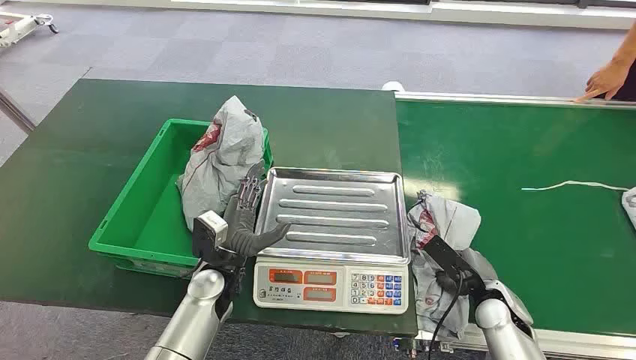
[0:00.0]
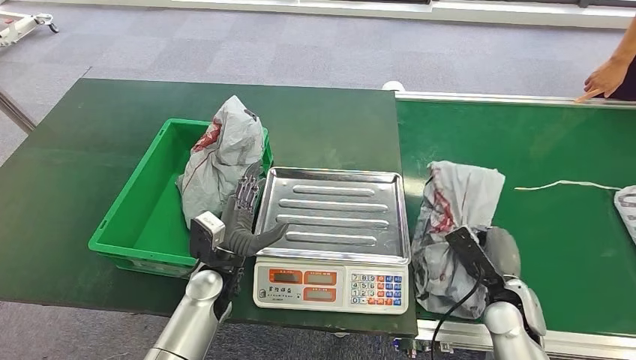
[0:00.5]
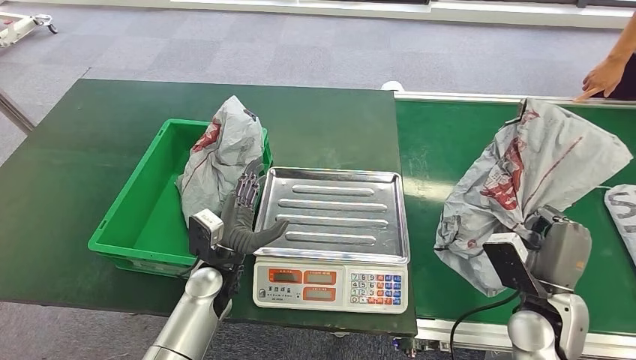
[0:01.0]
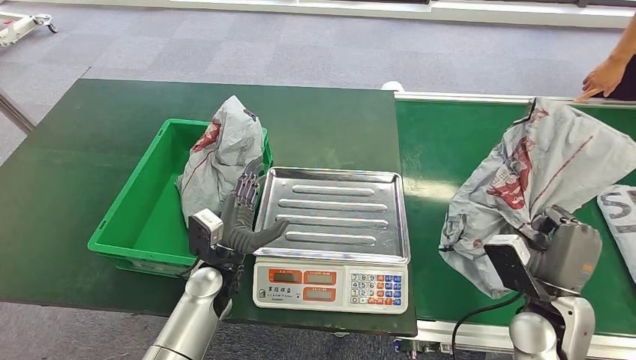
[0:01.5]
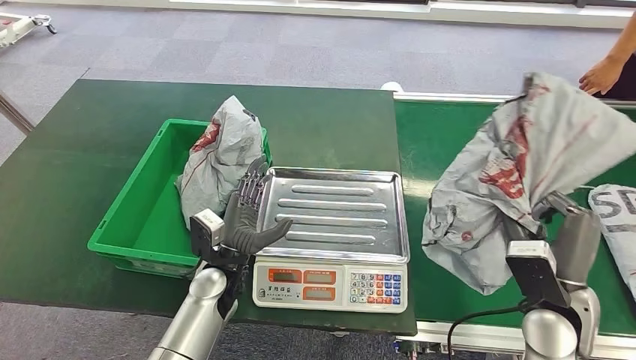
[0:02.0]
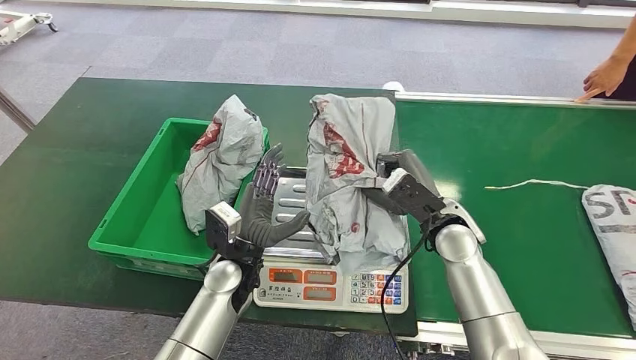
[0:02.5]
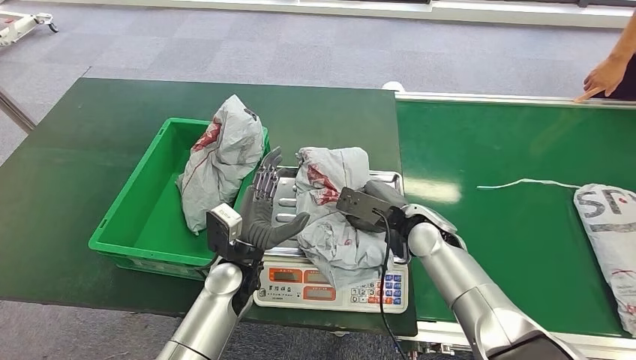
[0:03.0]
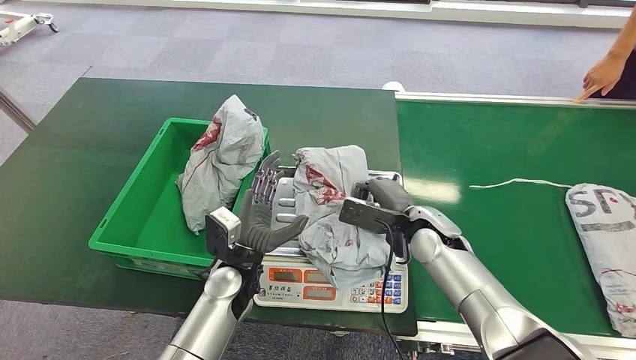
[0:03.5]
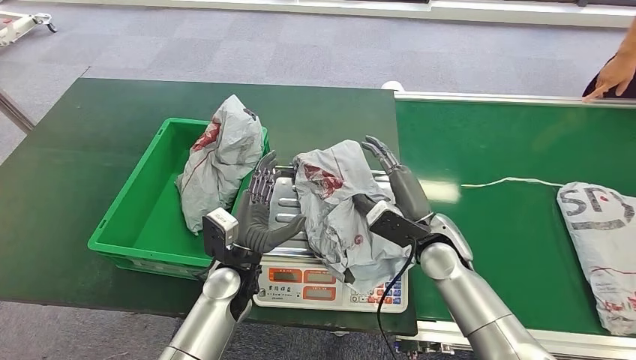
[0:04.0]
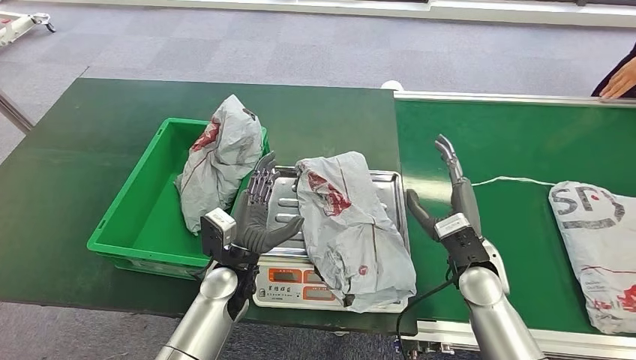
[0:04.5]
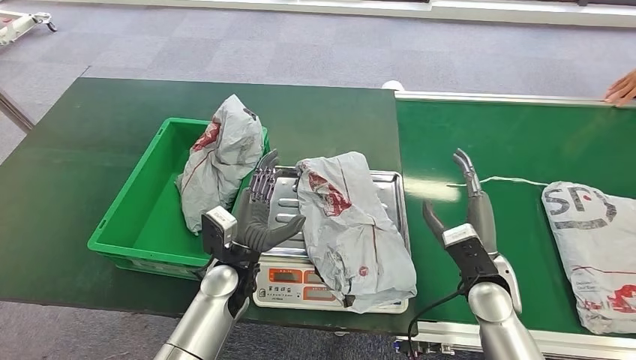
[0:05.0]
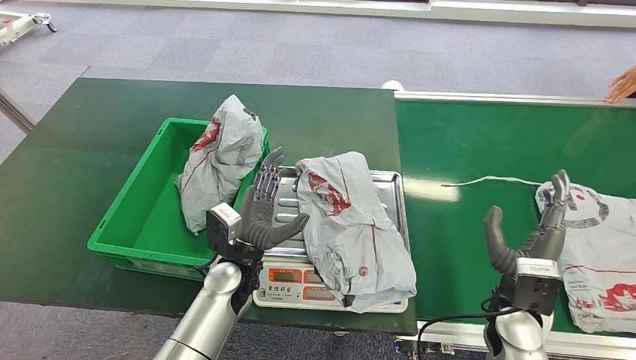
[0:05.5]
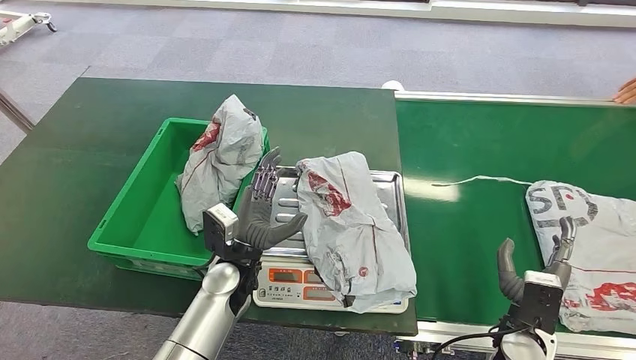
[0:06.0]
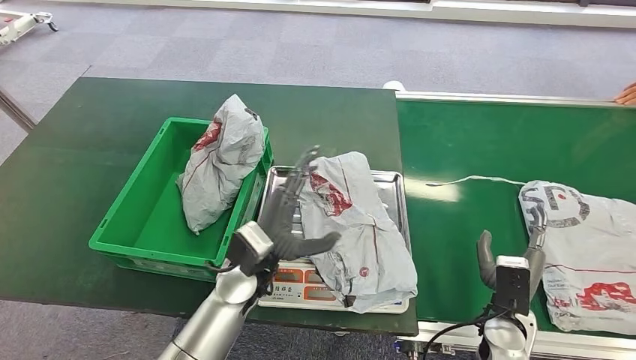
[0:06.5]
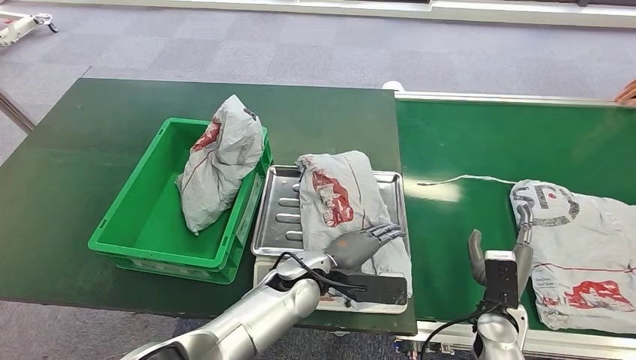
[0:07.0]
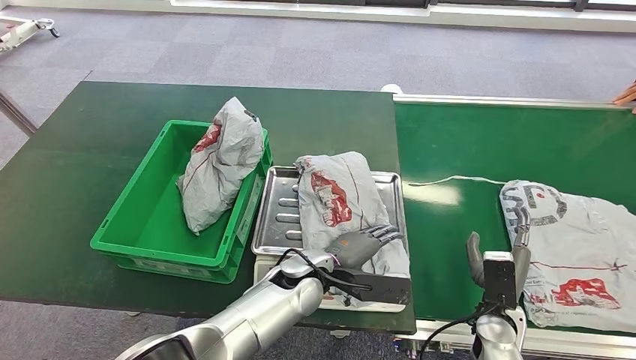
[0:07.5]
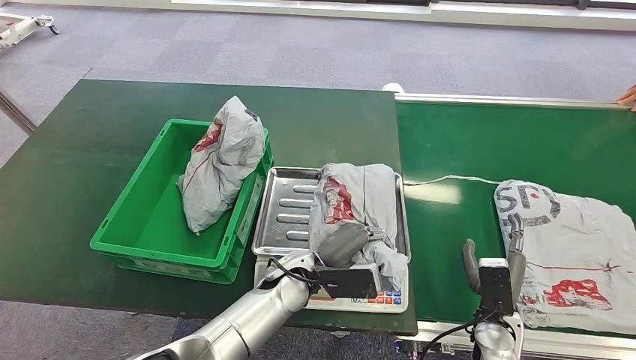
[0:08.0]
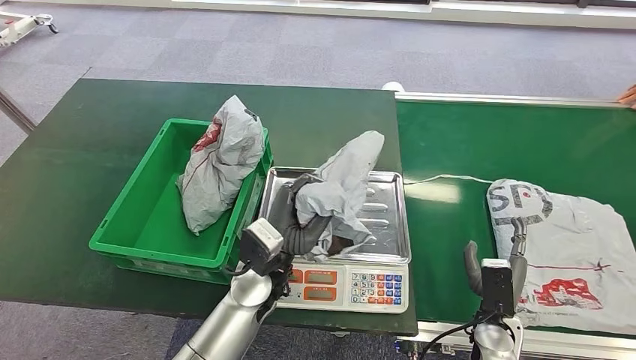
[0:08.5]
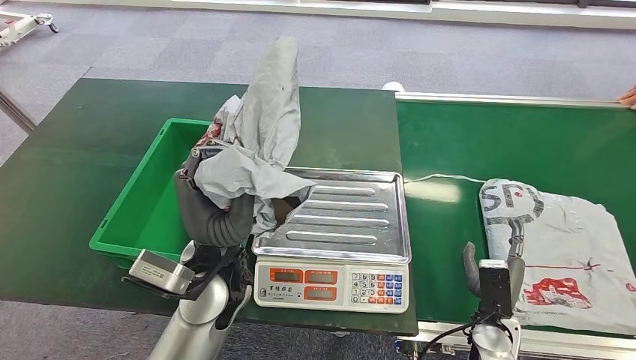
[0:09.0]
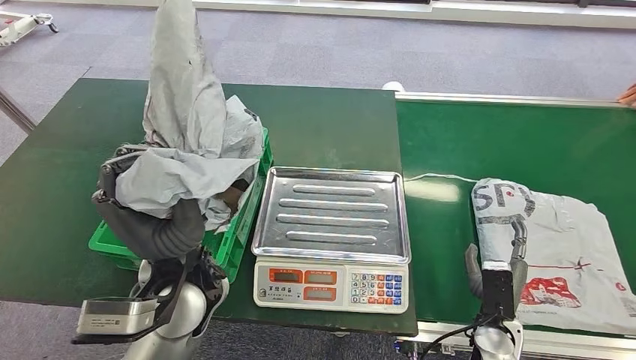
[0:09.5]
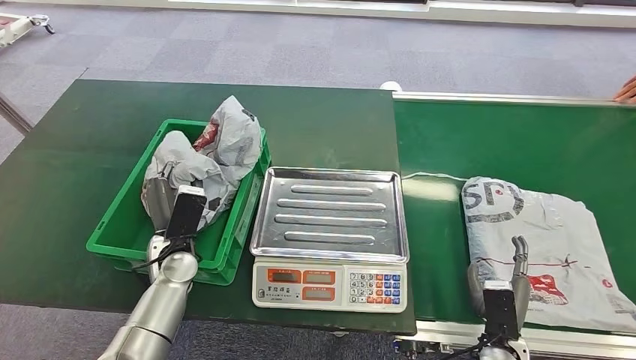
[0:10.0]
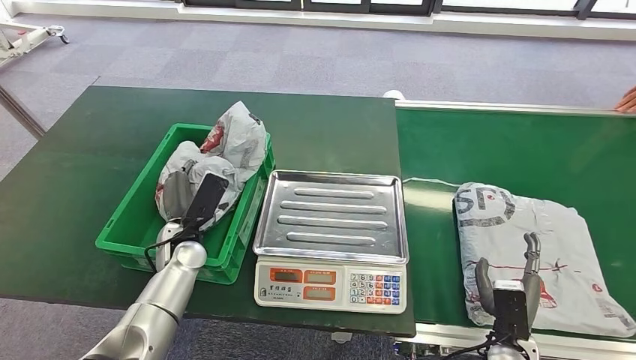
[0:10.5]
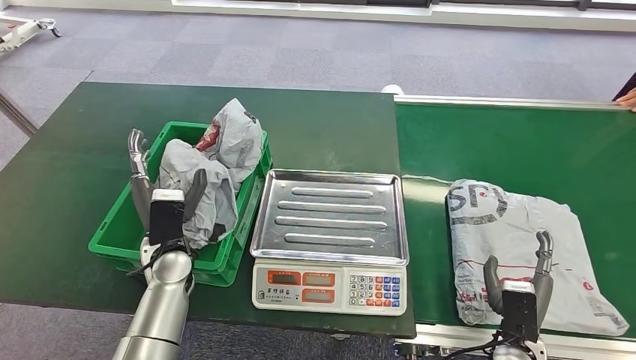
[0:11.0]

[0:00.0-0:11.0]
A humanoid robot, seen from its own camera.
Step, 0:00.0 to 0:01.0: Pick up the package from the conveyor belt.
Step, 0:01.5 to 0:04.5: Place the package onto the inbound machine.
Step, 0:05.0 to 0:08.5: Pick up the package from the inbound machine.
Step, 0:09.0 to 0:11.0: Place the package into the parcel locker.

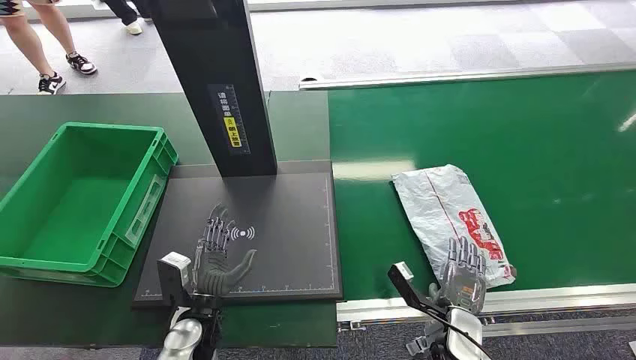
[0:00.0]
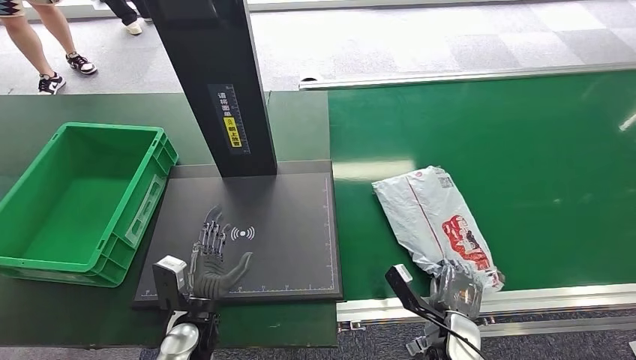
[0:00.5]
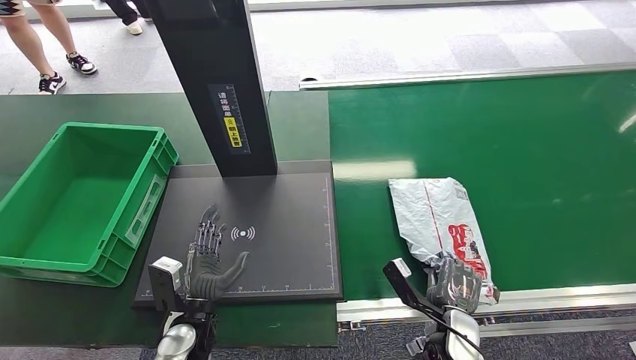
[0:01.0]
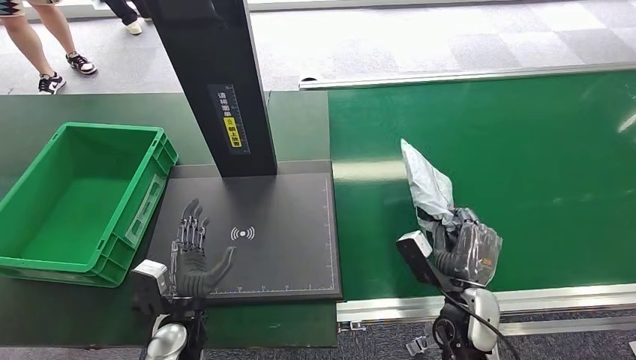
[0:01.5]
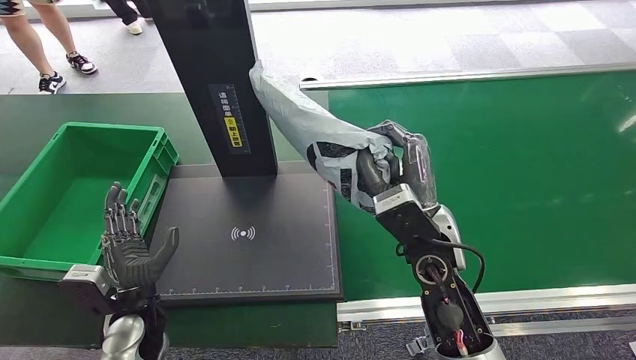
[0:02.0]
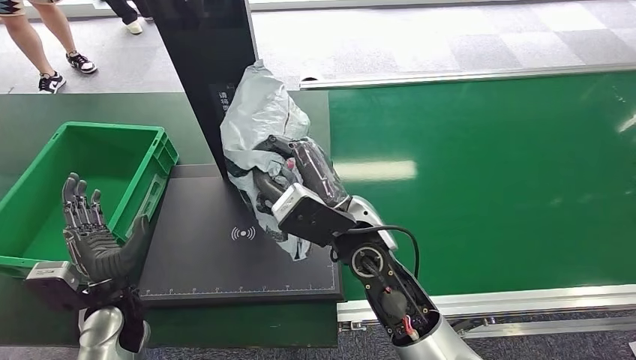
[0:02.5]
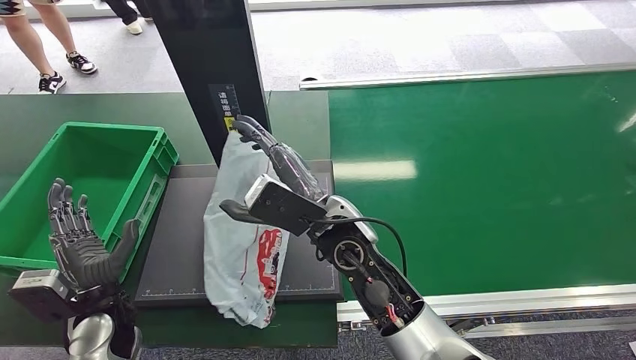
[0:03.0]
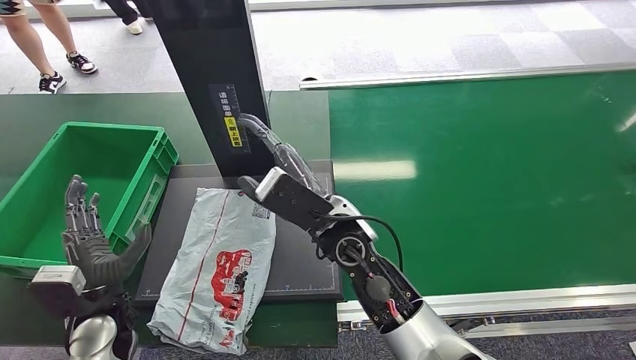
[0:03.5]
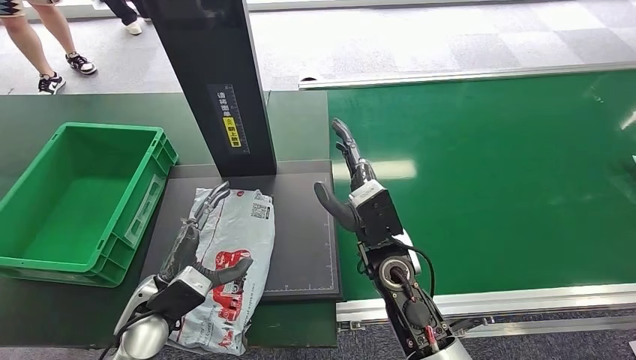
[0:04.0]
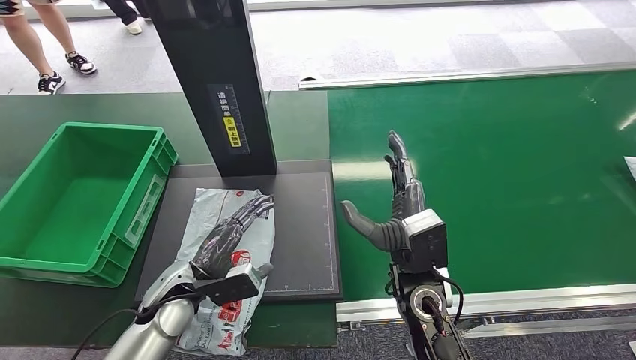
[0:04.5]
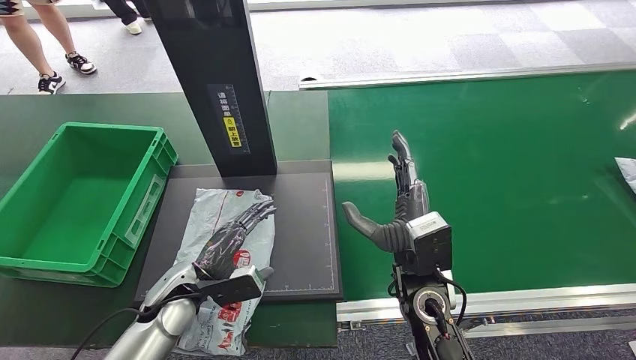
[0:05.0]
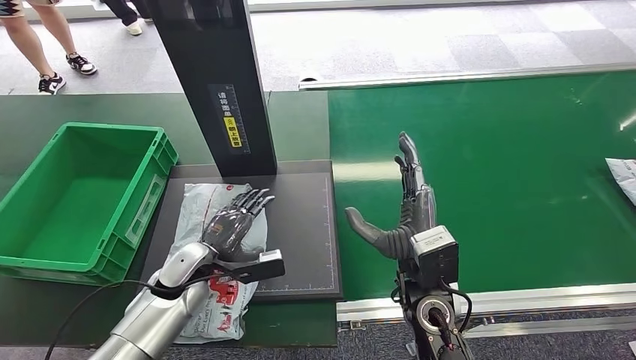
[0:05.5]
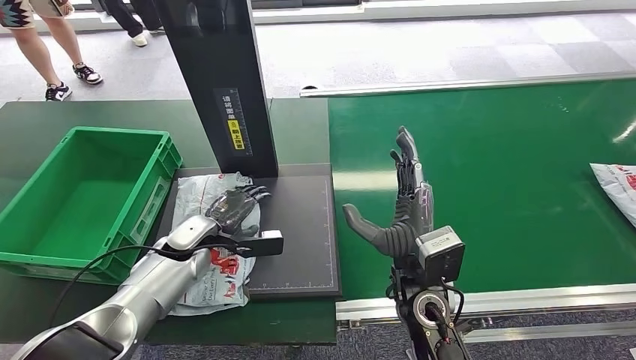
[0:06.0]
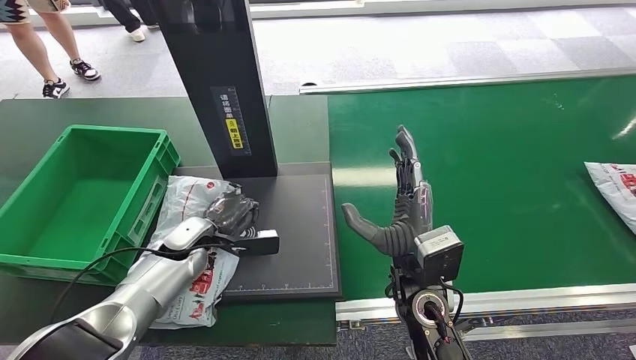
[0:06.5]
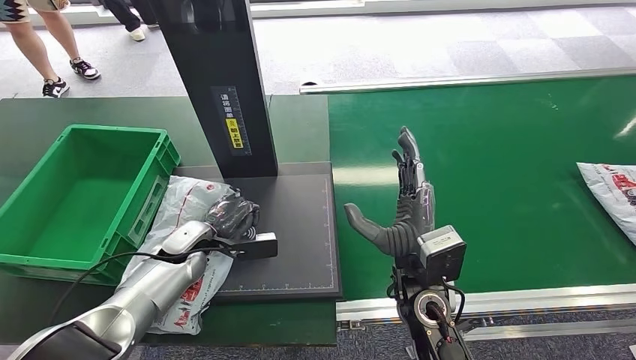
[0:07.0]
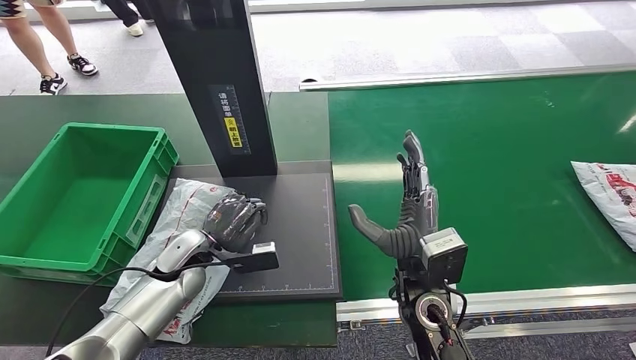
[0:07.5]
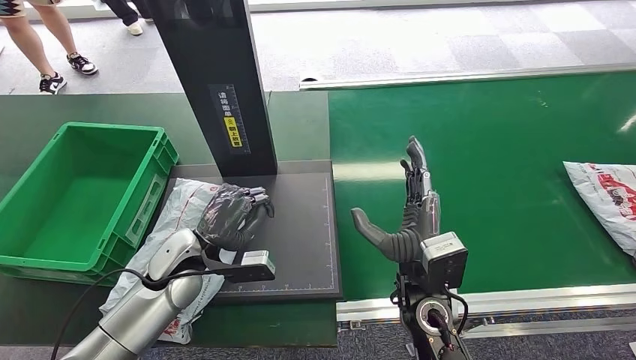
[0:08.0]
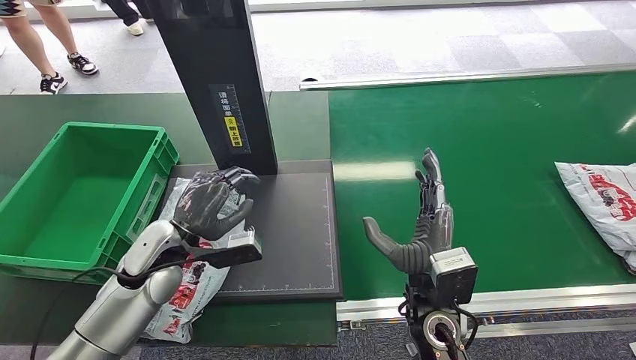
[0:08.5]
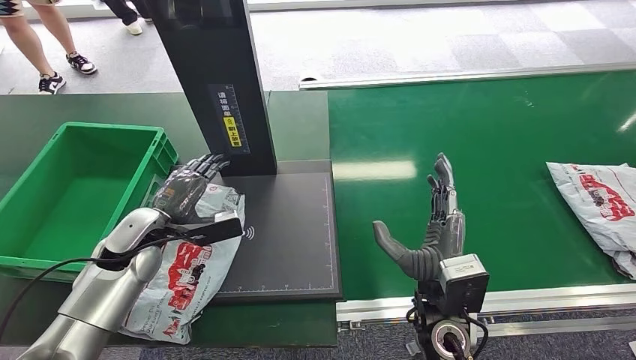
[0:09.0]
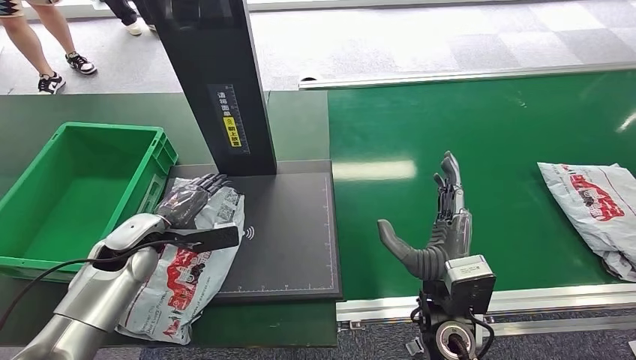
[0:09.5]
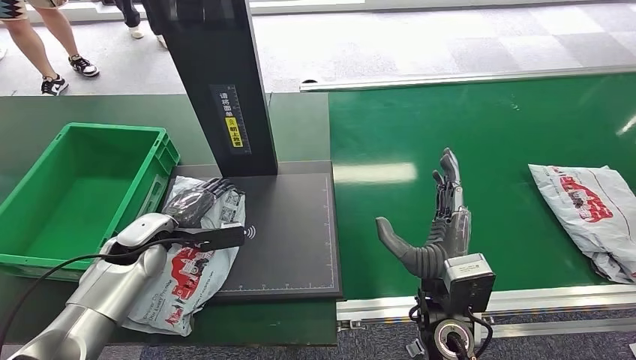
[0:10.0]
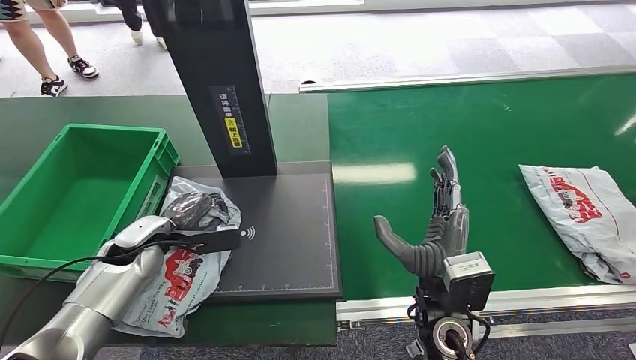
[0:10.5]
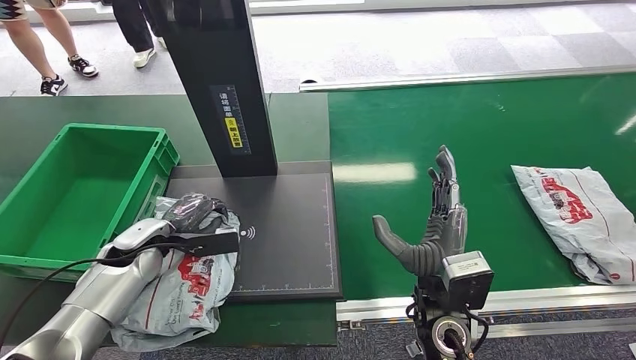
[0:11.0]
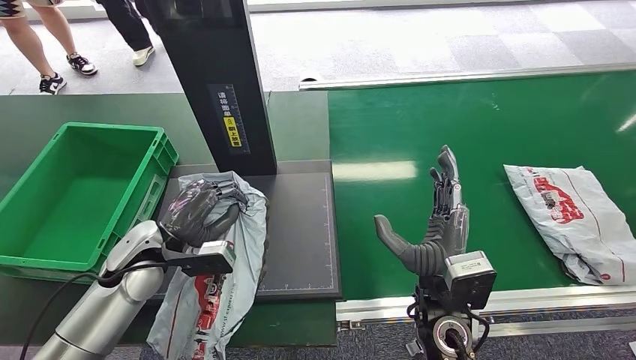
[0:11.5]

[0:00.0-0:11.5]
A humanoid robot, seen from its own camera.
Step, 0:00.0 to 0:01.5: Pick up the package from the conveyor belt.
Step, 0:02.0 to 0:04.5: Place the package onto the inbound machine.
0:02.0 to 0:04.0: The left hand shifts by about 5 cm. The right hand heads to the left and downward, covering approximately 5 cm.
